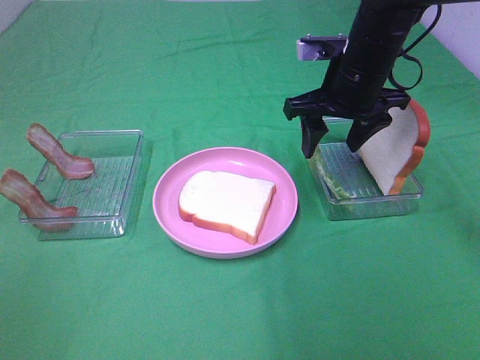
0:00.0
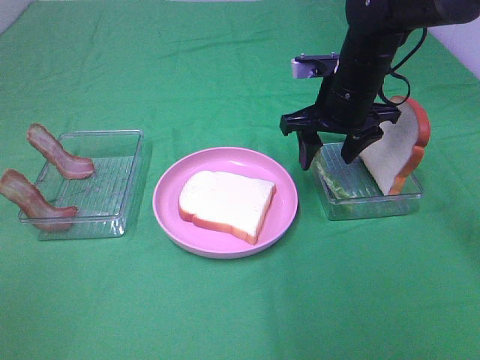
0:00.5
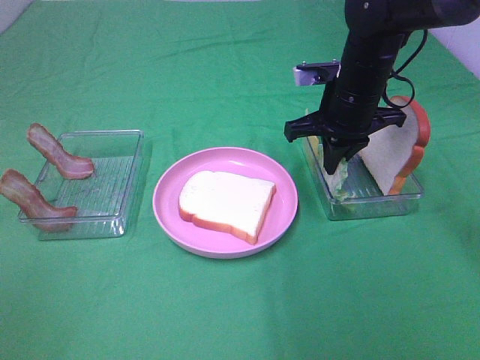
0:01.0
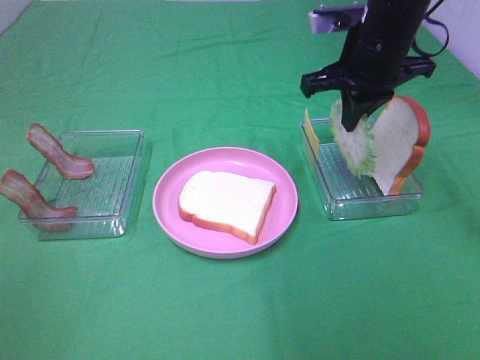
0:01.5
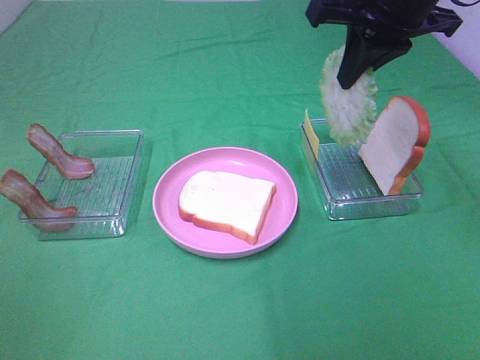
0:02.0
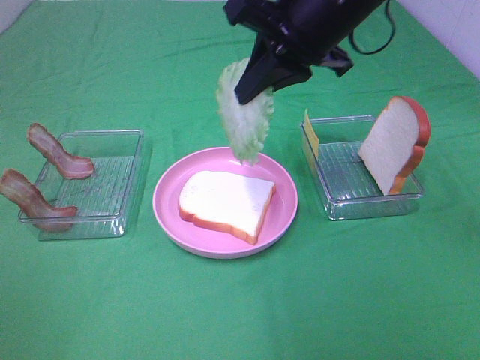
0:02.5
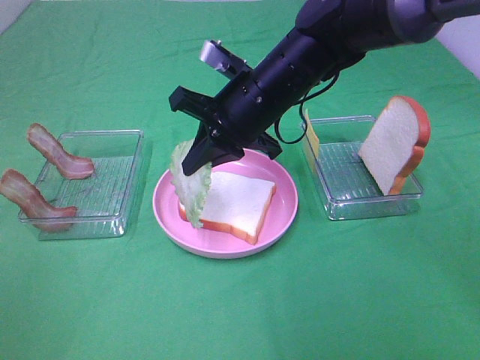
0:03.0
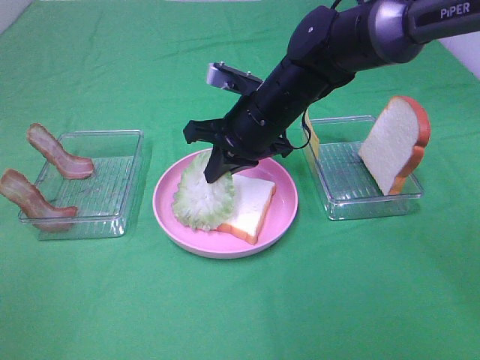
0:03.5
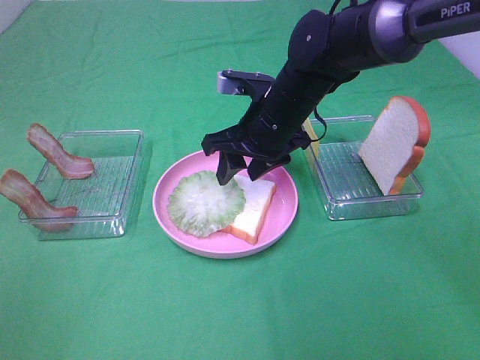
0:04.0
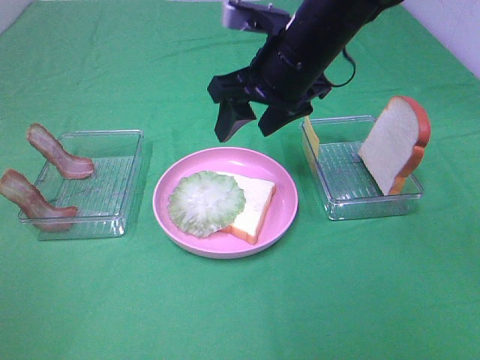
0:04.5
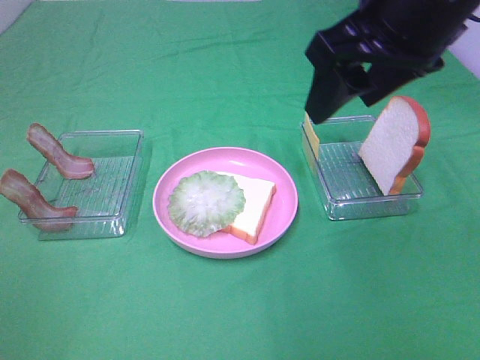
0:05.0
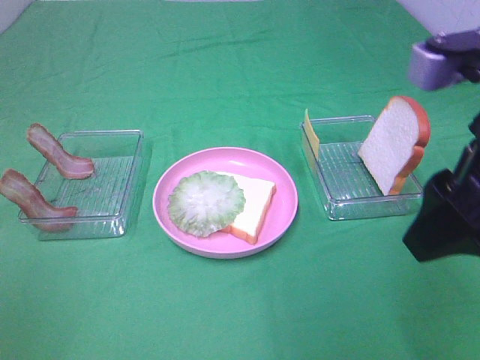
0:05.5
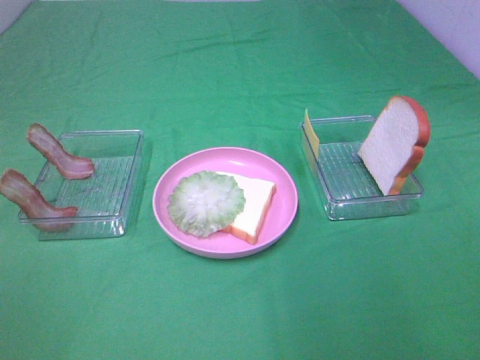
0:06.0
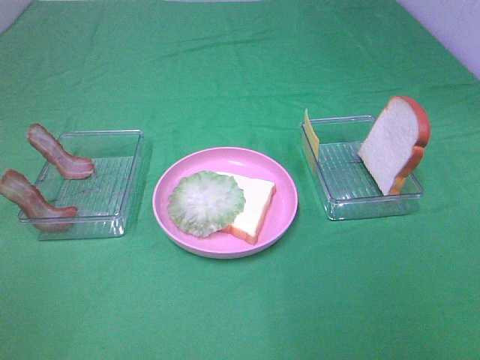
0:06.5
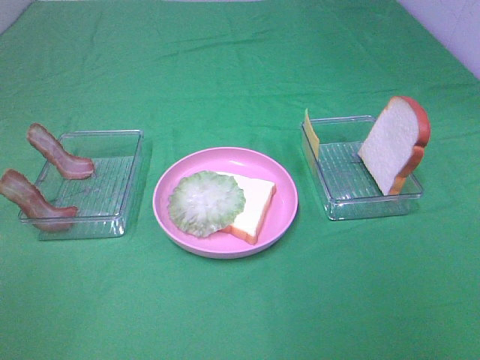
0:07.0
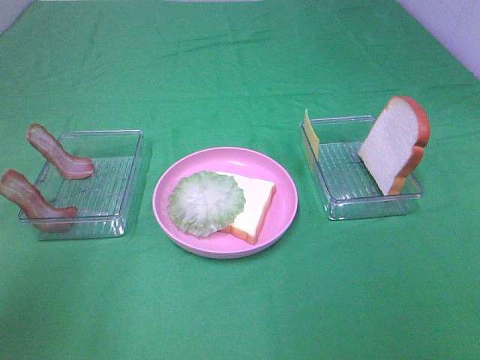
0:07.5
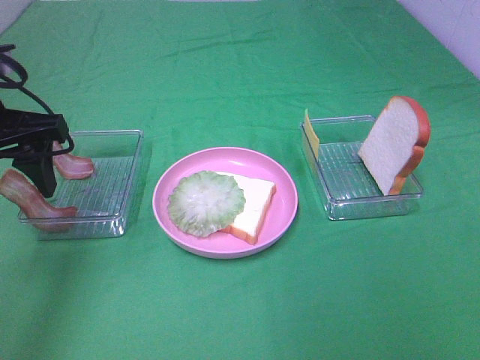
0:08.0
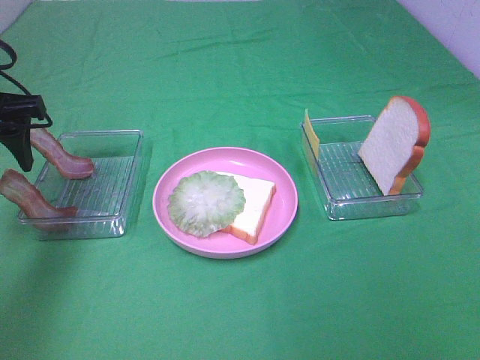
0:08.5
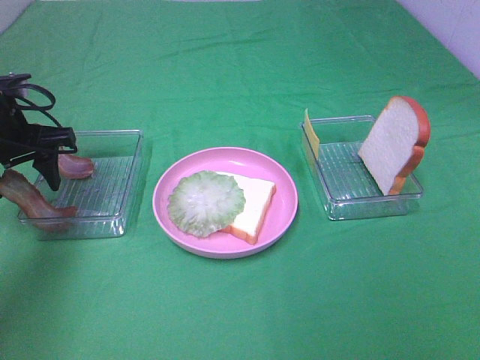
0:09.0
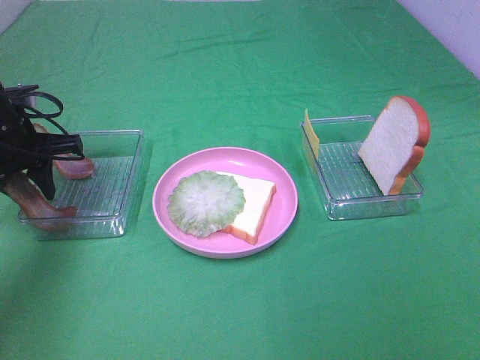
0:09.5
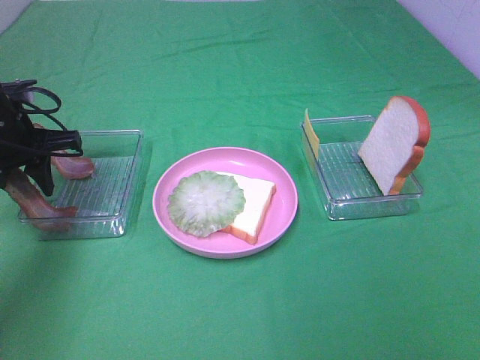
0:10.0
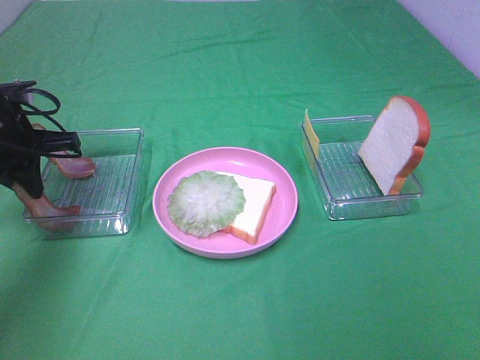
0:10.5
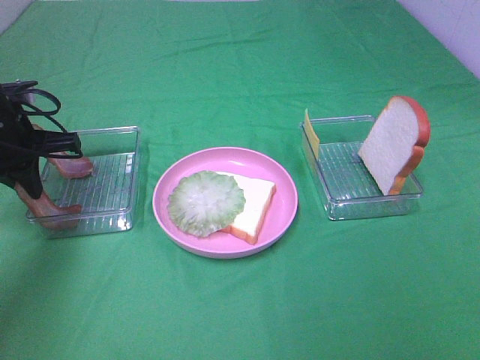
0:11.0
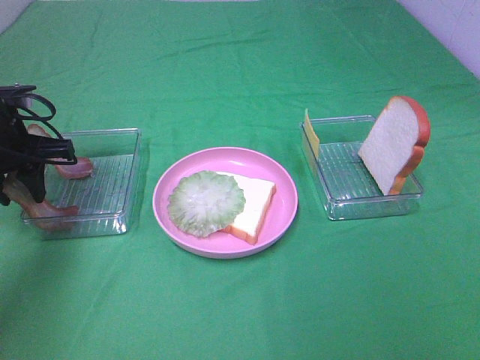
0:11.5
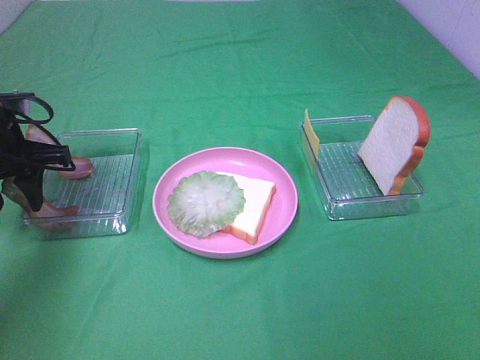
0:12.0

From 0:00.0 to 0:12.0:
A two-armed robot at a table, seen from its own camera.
Task of the whole recording: Make sandwiches.
Step, from 0:01.5 to 0:04.0: Right hand:place the lettuce slice on the bread slice.
Step, from 0:04.5 to 0:10.5: Left hand:grab the bacon.
From 0:00.0 to 0:02.0: The right gripper shifts roughly 15 cm upward and backward, and closes up.
From 0:02.0 to 0:04.0: The right gripper goes roughly 20 cm downward and to the left, and opens.
From 0:04.0 to 0:06.0: The right gripper shifts some 35 cm backward, to the right and upward.
From 0:06.0 to 0:08.0: The left gripper is displaced forward by approximately 30 cm.
From 0:08.0 to 0:10.0: The left gripper is displaced downward and forward by about 10 cm, and closes.
From 0:10.0 to 0:12.0: The left gripper closes, then opens again.

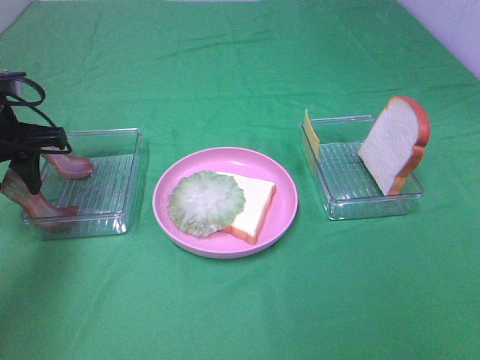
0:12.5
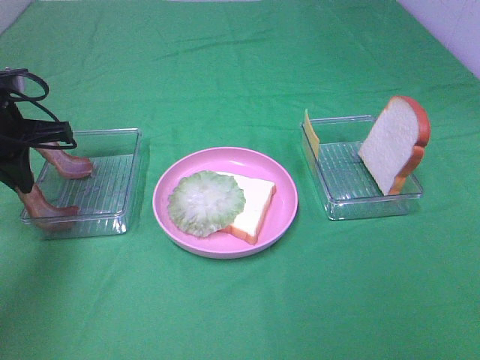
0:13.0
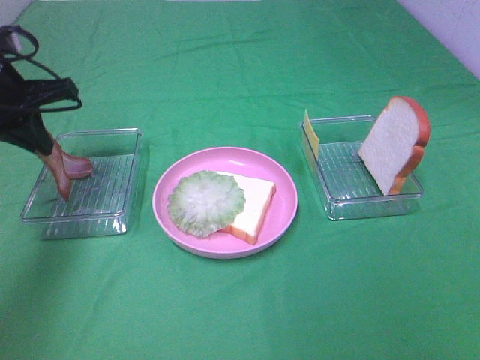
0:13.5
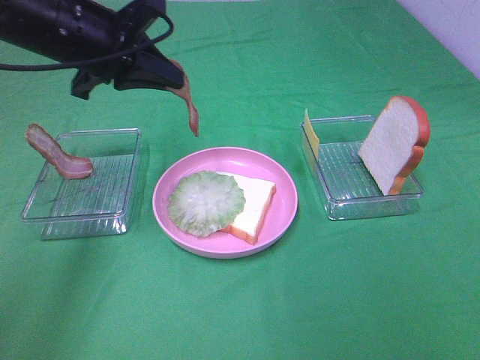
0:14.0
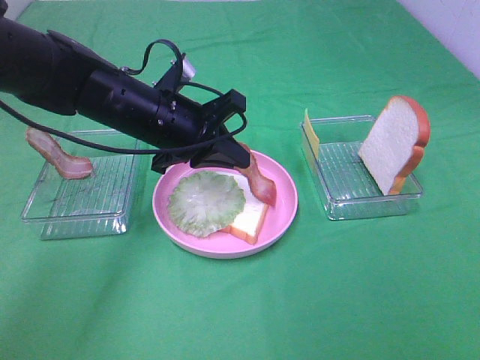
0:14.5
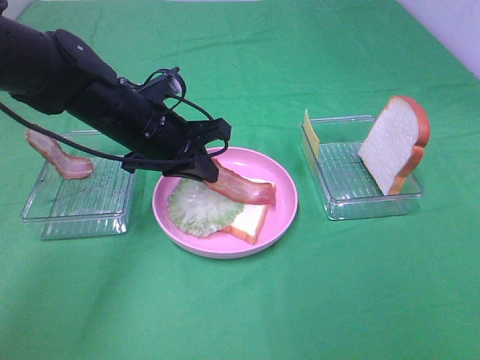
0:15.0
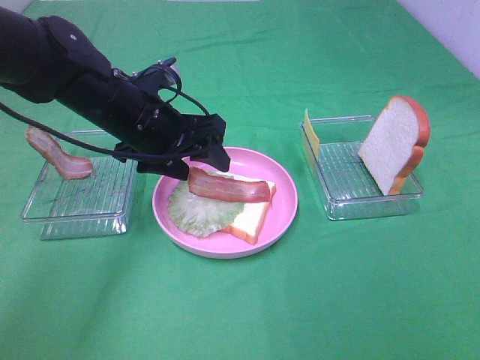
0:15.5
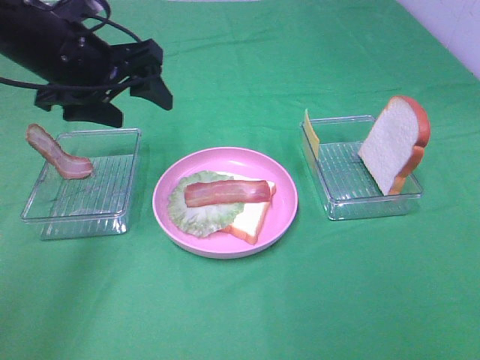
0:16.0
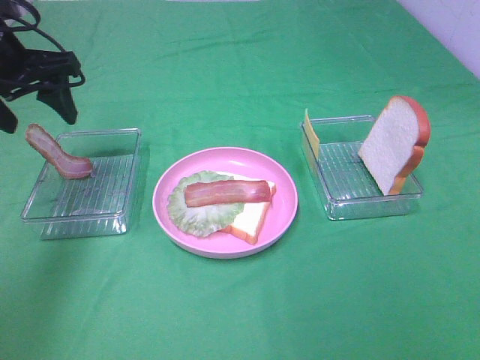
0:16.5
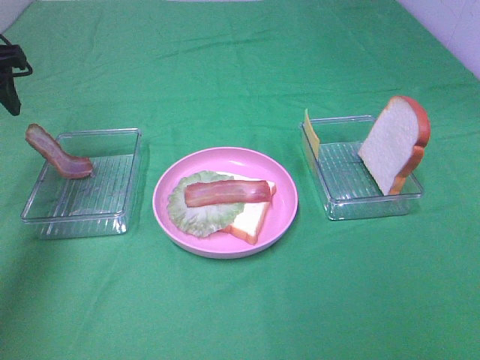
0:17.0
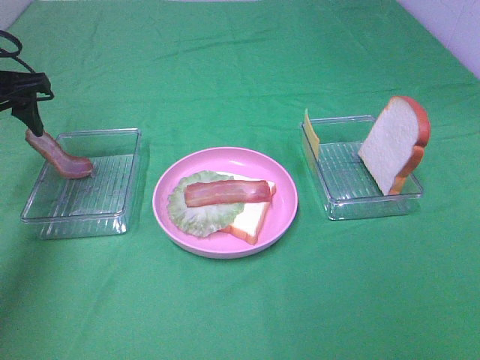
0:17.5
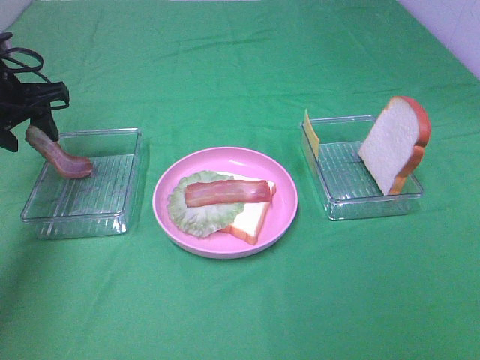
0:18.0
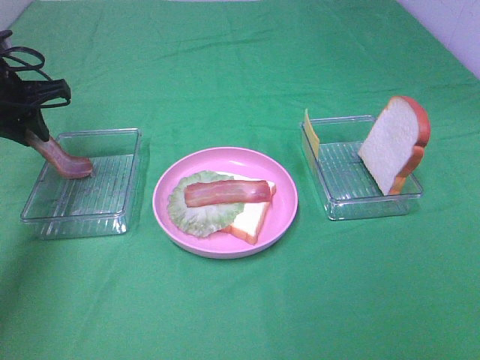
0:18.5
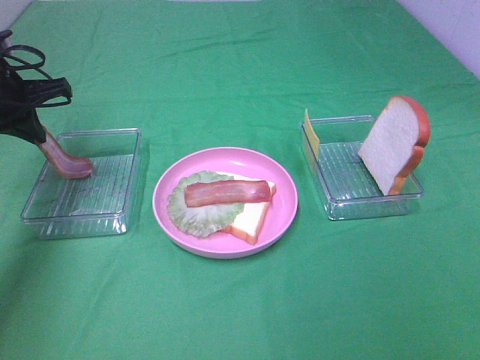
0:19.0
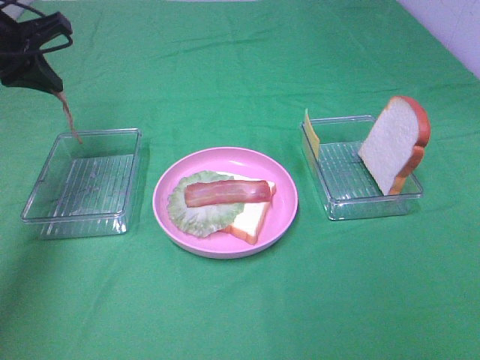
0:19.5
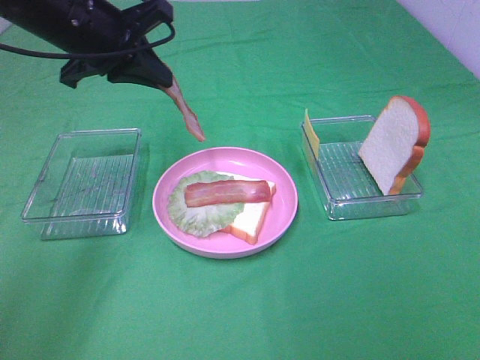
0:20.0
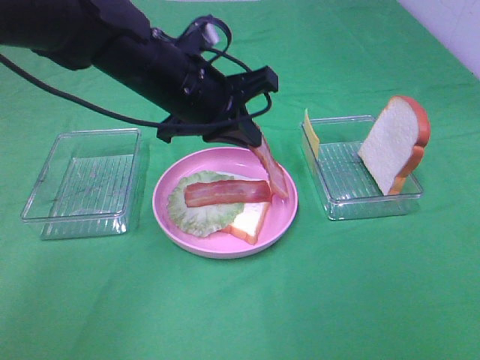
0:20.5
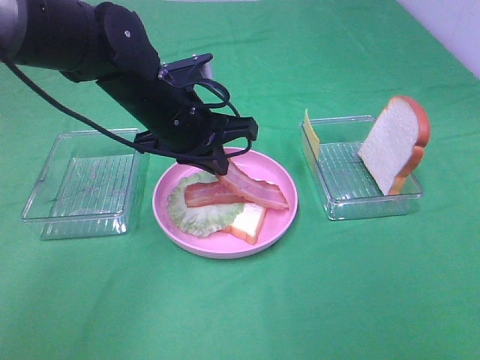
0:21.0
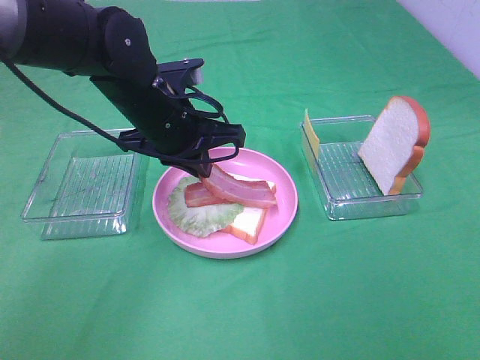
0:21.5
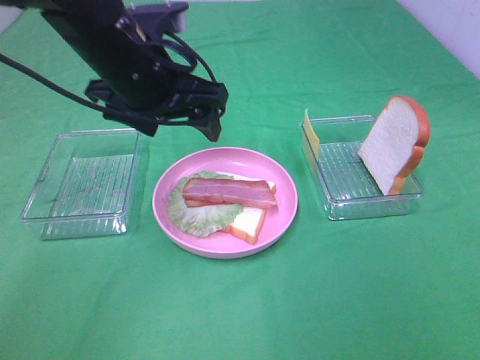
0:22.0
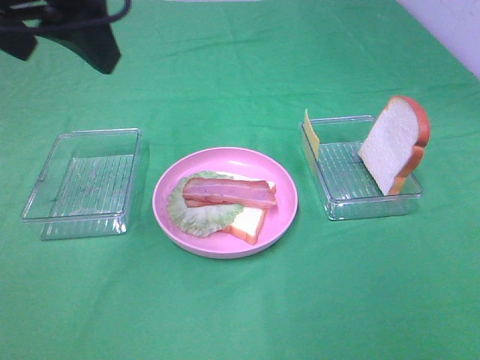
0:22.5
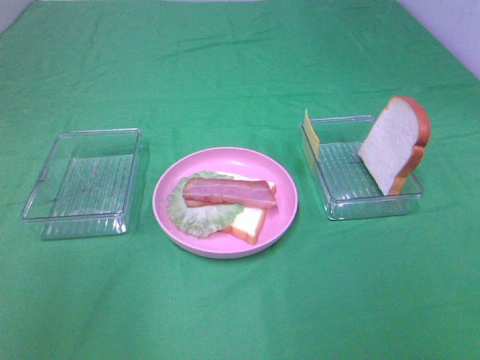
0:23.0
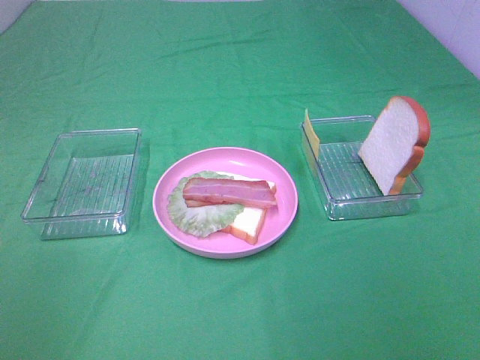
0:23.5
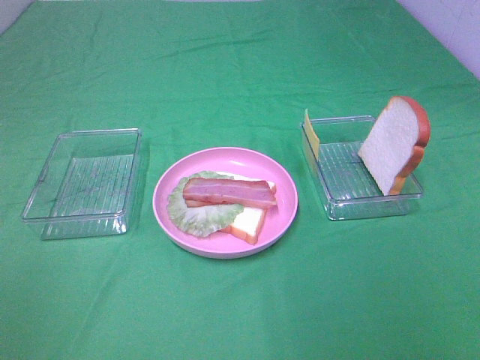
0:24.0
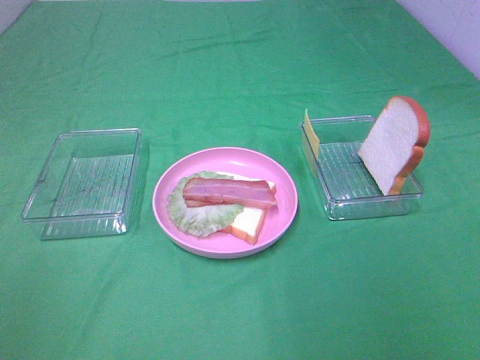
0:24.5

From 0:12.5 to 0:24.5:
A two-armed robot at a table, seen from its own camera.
Task of the whole recording: Make sandwiches.
Step, from 0:12.5 to 0:15.5: Left hand:place bacon on lettuce slice.
Step, from 0:16.0 to 0:19.0: Left hand:grab the bacon.
Step, from 0:19.5 to 0:21.5: Left hand:place bacon on bacon.
From 0:12.5 to 0:14.5: The left gripper travels to the right by about 20 cm, and closes its fingers.
From 0:14.5 to 0:16.5: The left gripper shifts some 20 cm to the left and upward, and opens its fingers.
From 0:16.5 to 0:18.5: The left gripper shifts approximately 5 cm downward, and closes.
From 0:18.5 to 0:20.5: The left gripper shifts roughly 25 cm to the right.
From 0:20.5 to 0:22.5: The left gripper goes roughly 25 cm upward, to the left and backward, and opens its fingers.
From 0:22.5 to 0:24.5: The left gripper is displaced backward and to the left by roughly 30 cm.

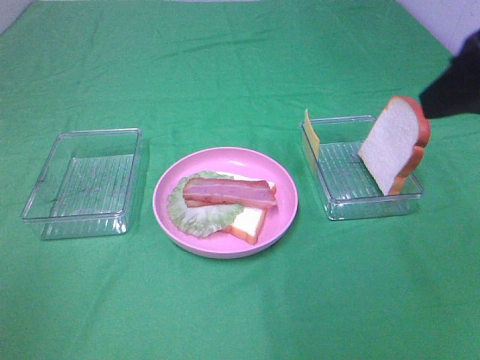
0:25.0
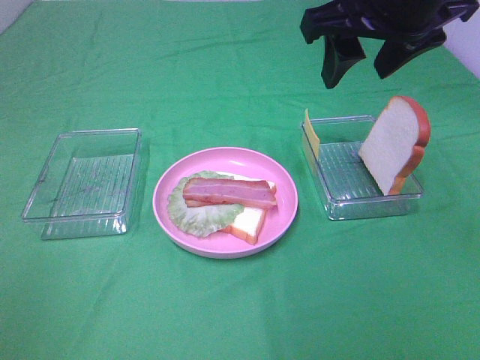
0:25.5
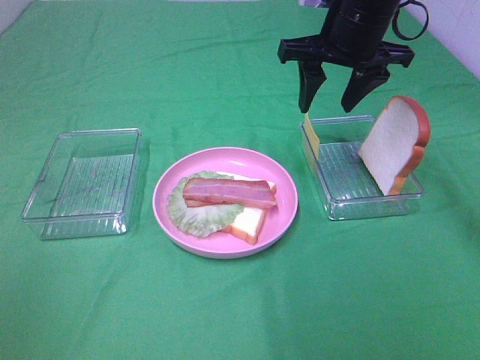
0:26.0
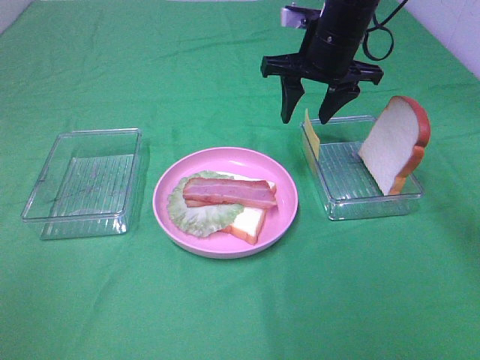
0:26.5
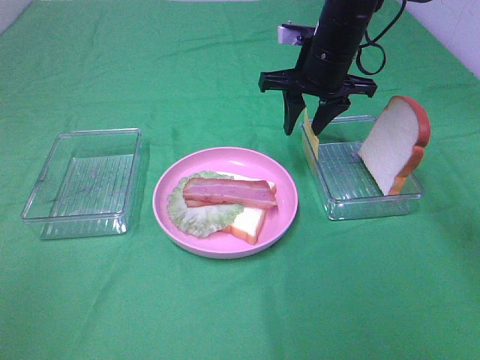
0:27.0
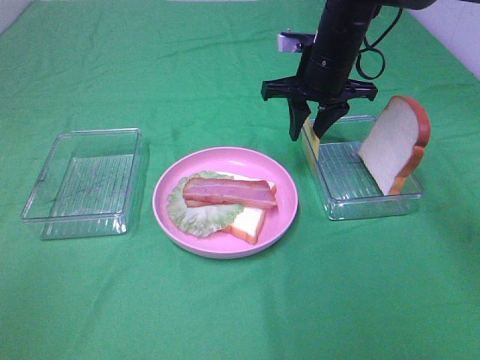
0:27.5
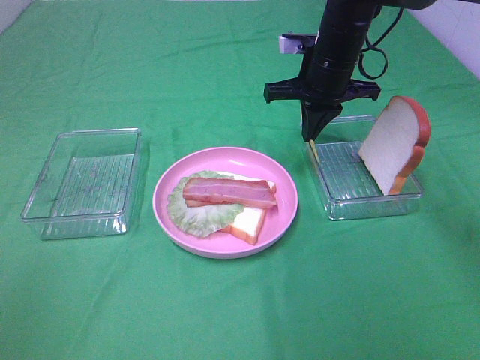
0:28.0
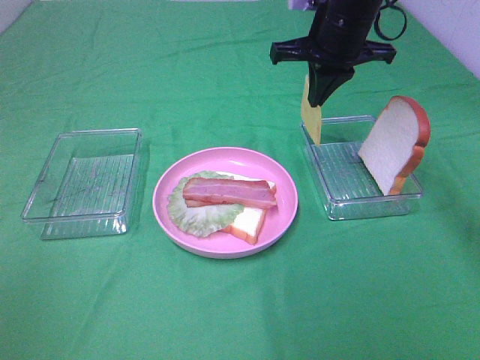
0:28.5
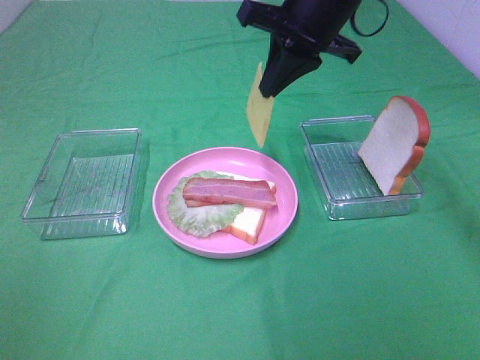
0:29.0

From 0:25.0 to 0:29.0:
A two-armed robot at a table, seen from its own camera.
Task of the whole recording: Make sandwiches.
Step, from 0:25.0 to 0:28.0: Right hand:grab the cheese slice.
From 0:25.0 to 0:27.0: The right gripper shifts about 30 cm forward and downward.
From 0:27.0 to 0:29.0: The right gripper travels upward and backward by roughly 10 cm, and closes.
